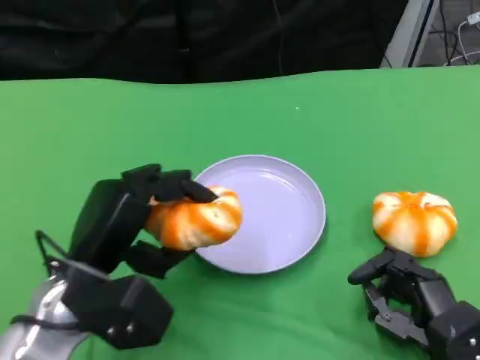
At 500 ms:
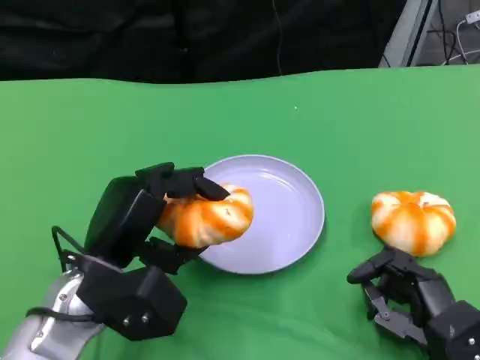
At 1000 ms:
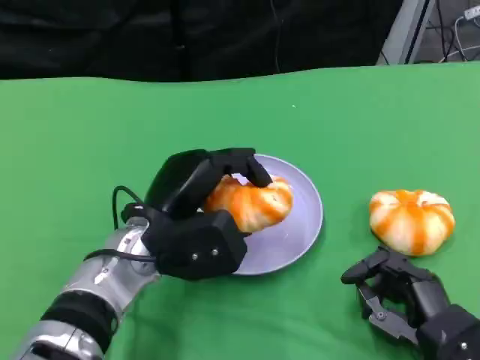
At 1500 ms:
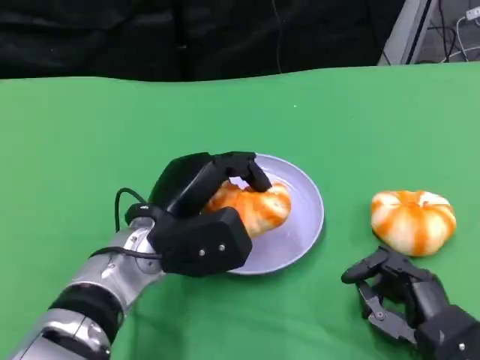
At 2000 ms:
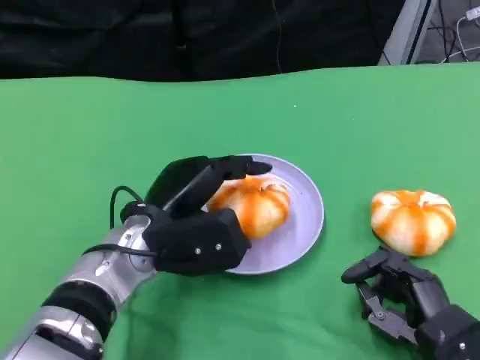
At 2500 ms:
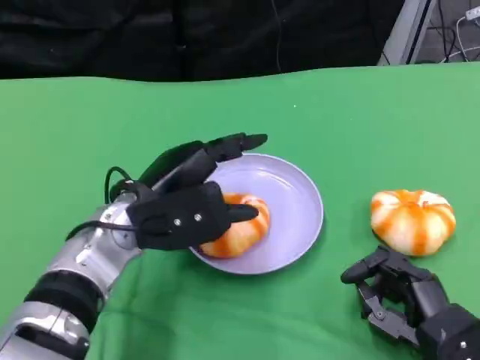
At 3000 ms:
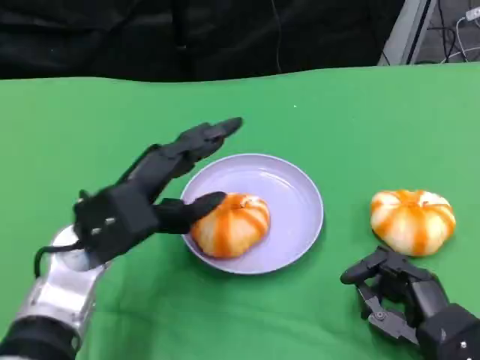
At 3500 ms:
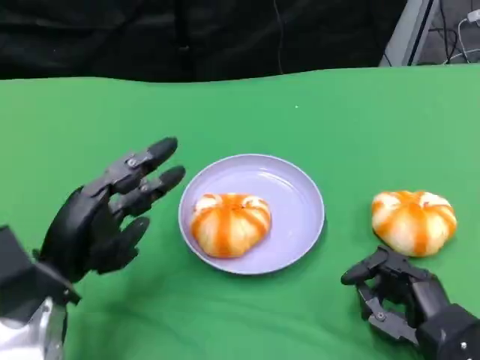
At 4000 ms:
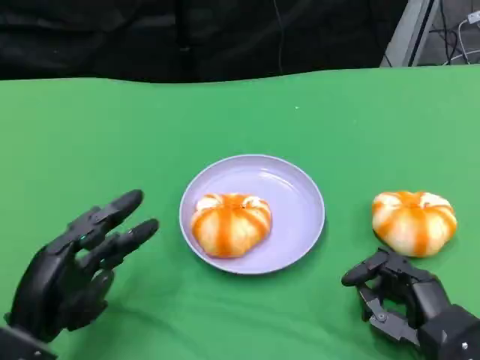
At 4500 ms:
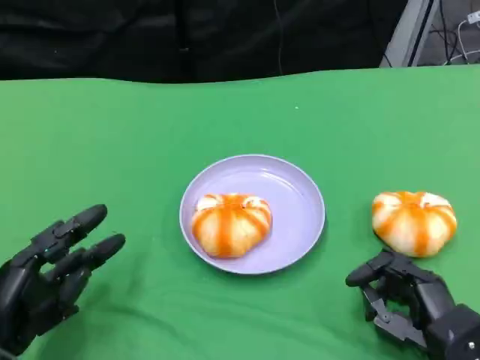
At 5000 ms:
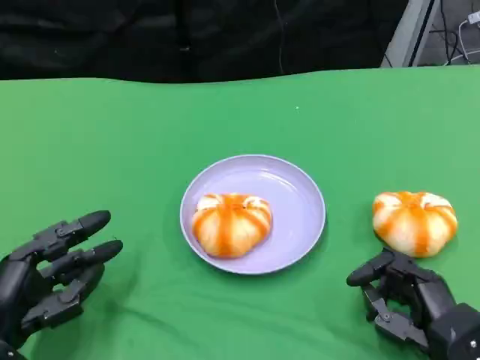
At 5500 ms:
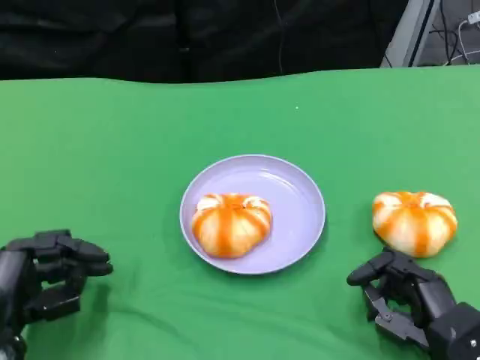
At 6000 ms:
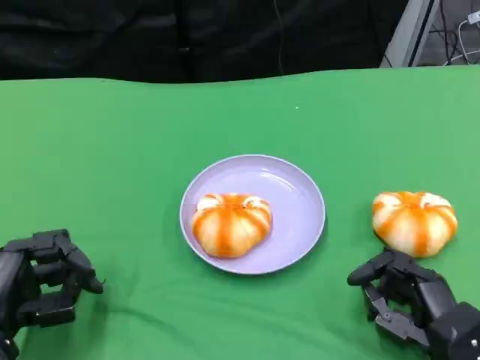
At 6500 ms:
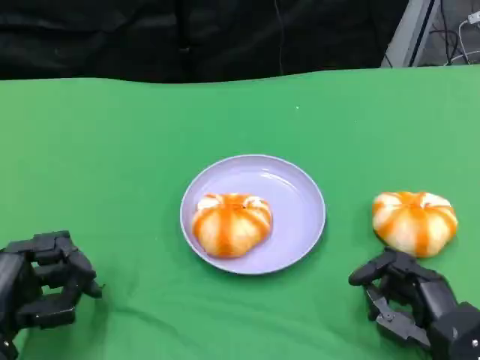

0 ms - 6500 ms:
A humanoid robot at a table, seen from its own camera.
Task of the whole recording: Grasp the bread from the table and place it into the plate.
0 ms - 2000 ms: The left hand moves to the right and forward, some 10 cm.
2000 ms - 4500 ms: The left hand travels to the left, backward and downward by about 20 cm.
4500 ms - 6500 ms: There are only small adjustments of the hands.

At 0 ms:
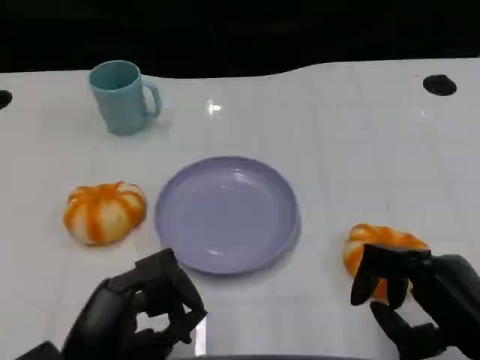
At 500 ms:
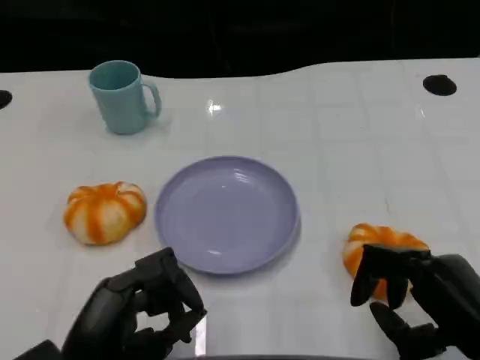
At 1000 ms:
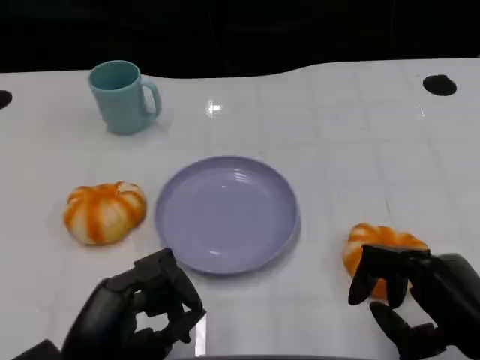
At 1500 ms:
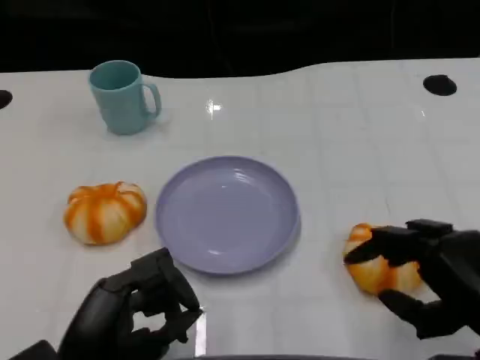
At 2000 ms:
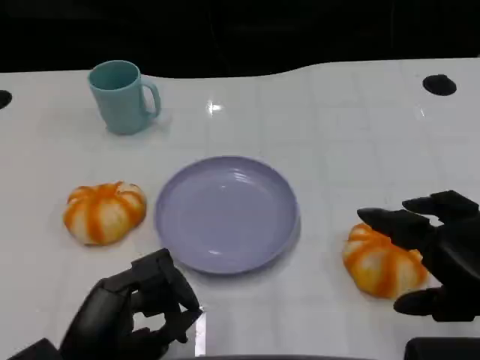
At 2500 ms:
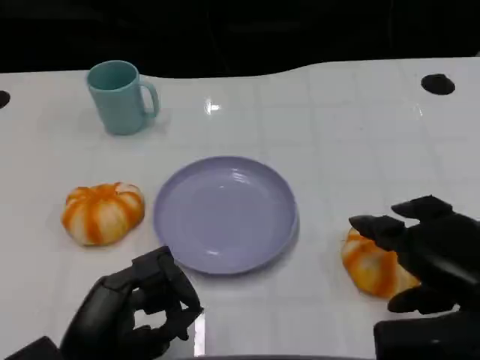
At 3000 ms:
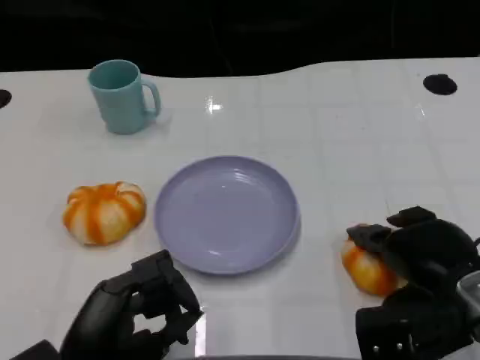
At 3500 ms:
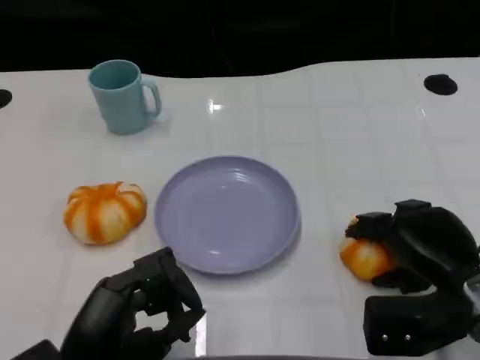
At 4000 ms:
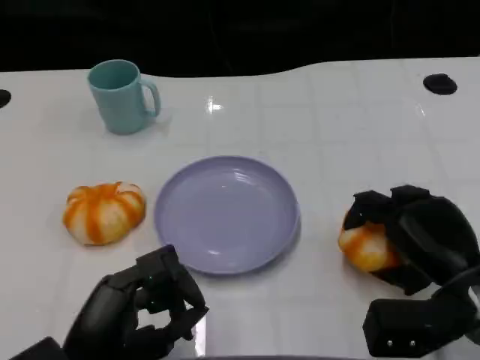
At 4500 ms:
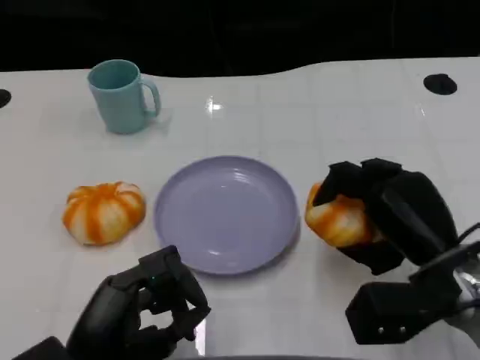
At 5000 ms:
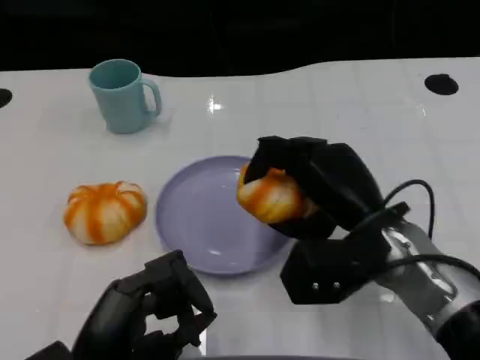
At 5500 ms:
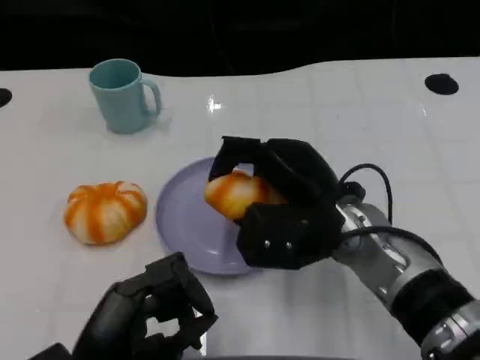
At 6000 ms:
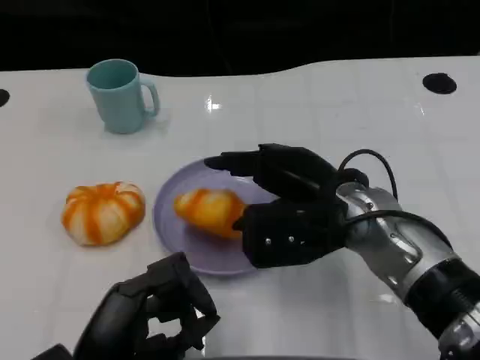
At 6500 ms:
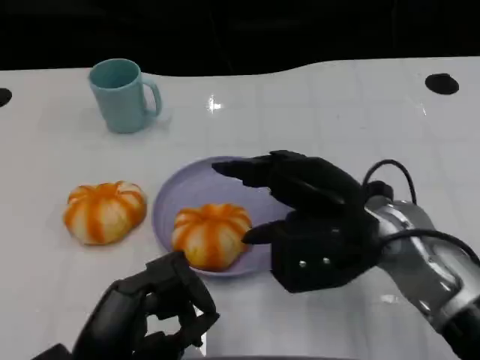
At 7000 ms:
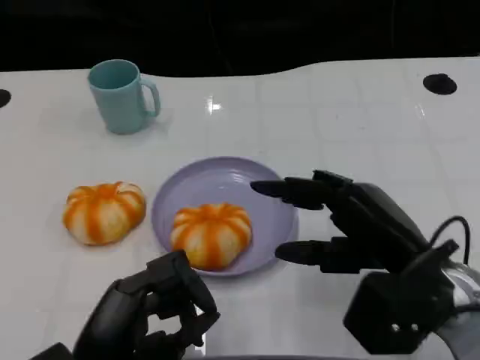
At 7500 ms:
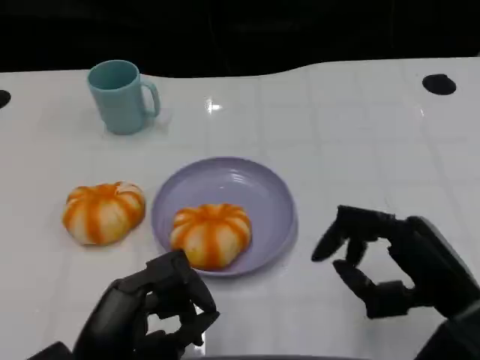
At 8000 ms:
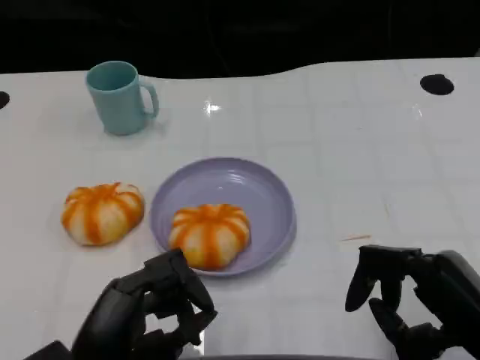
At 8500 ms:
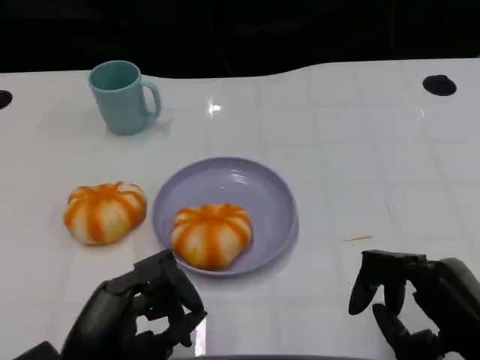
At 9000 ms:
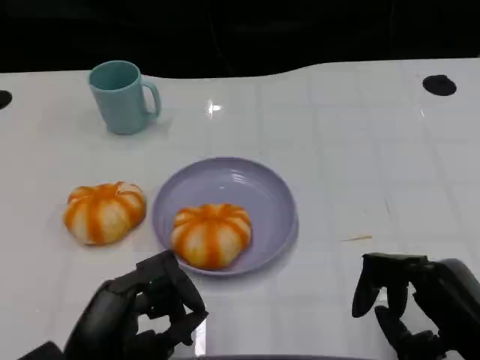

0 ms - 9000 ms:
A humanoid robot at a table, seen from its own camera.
Task of the whole recording: Grasp the bread from the table and place it into the plate.
0 ms - 2000 ms: The right hand is displaced upward by roughly 5 cm.
2000 ms - 4500 ms: The right hand travels forward, downward and to the left by about 10 cm.
4500 ms - 7000 ms: The right hand moves about 10 cm to the left and comes back.
7000 ms - 9000 ms: The right hand heads backward and to the right, covering about 10 cm.

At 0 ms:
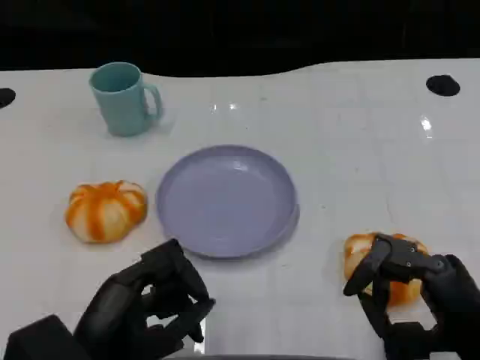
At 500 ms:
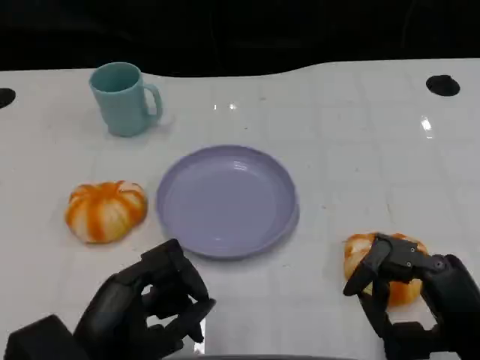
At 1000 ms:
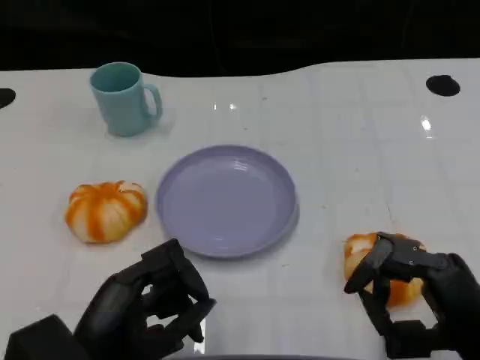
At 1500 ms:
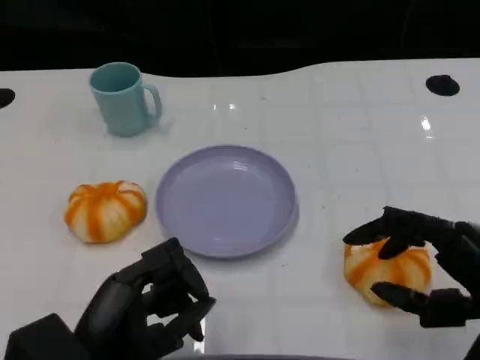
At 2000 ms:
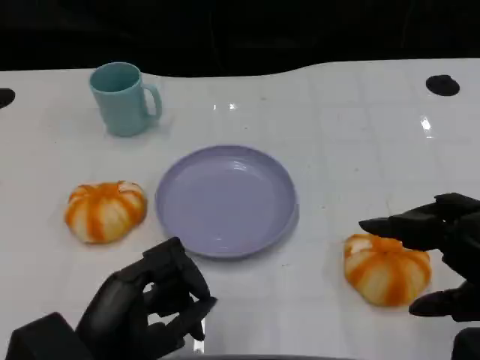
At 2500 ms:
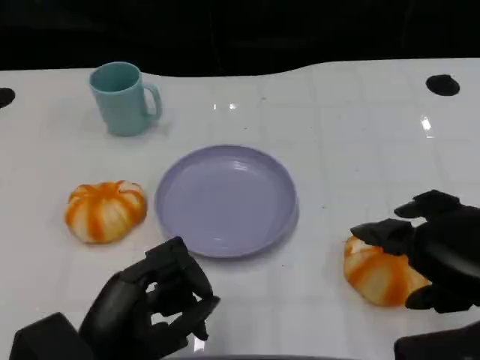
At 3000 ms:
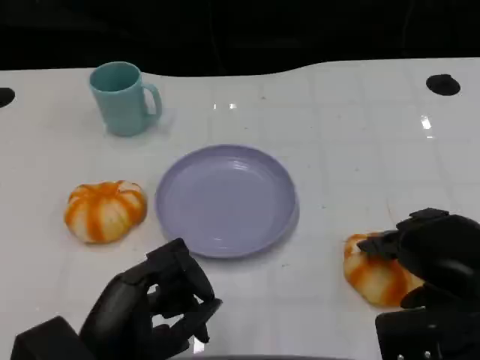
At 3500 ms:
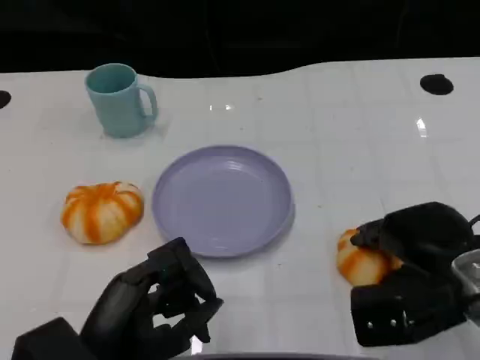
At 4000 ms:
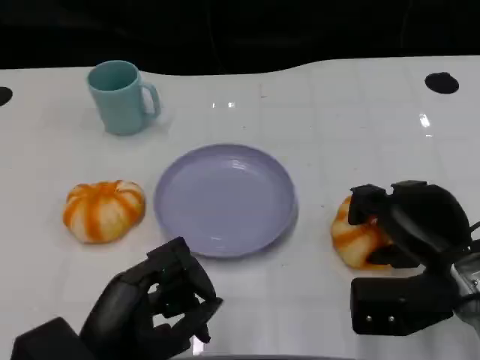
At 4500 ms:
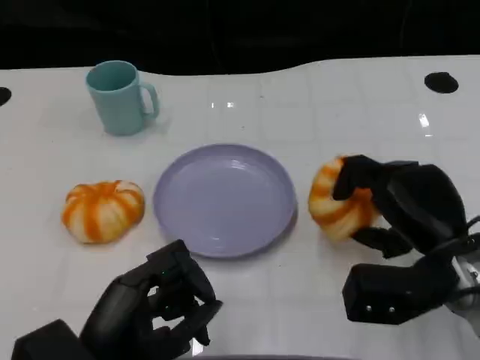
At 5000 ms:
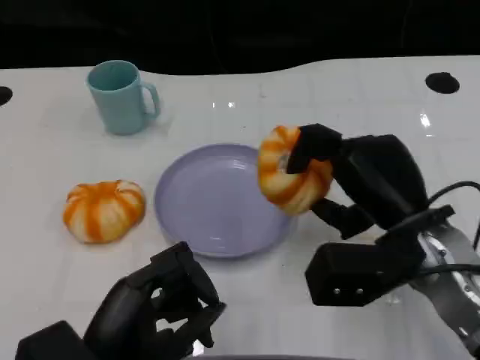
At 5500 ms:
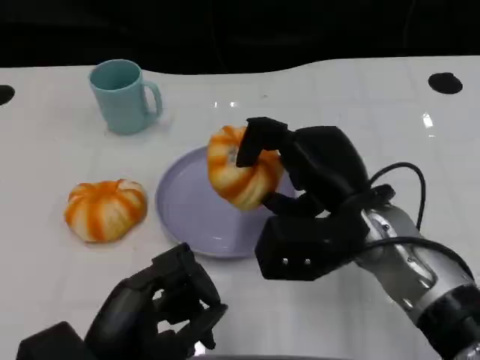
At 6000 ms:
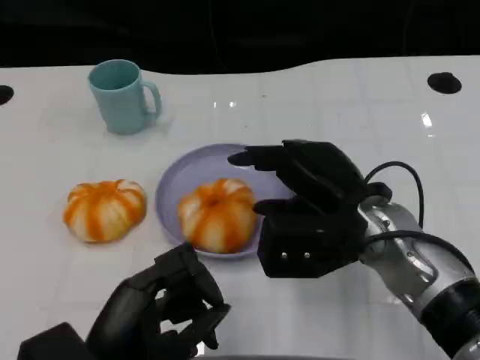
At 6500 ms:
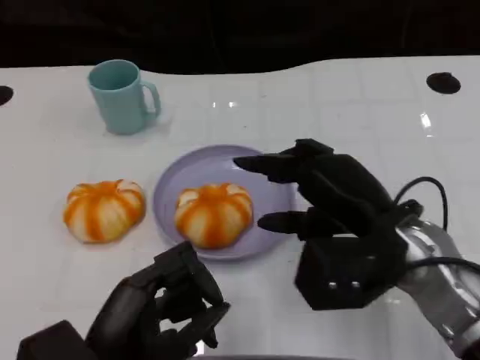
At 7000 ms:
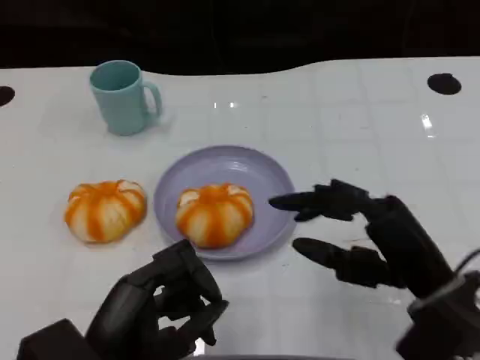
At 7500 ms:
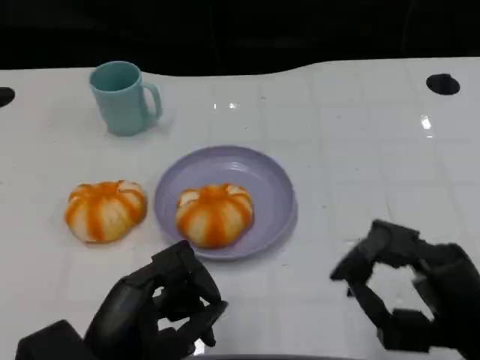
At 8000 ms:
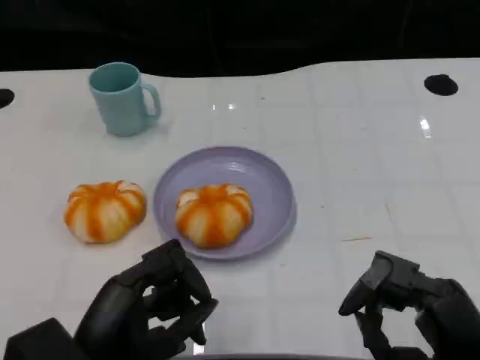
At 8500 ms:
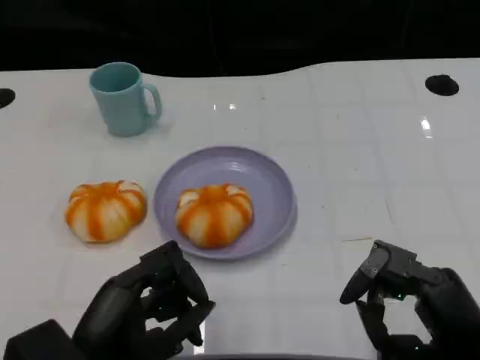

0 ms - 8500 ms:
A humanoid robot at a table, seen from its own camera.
Task of the whole recording: Grasp the bread from the table and place it into the plate.
0 ms - 2000 ms: The right hand moves upward, roughly 10 cm.
2000 ms - 4000 ms: The right hand travels downward and forward by approximately 15 cm.
4000 ms - 6500 ms: The right hand goes about 10 cm to the left and upward.
6500 ms - 8500 ms: The right hand goes approximately 15 cm backward, to the right and downward.

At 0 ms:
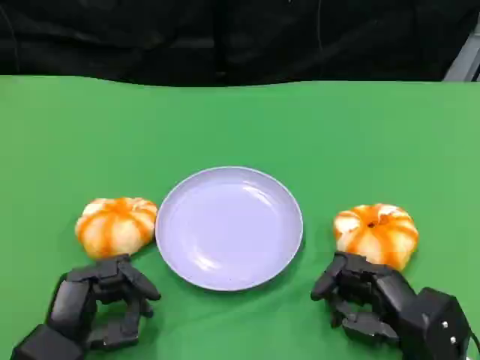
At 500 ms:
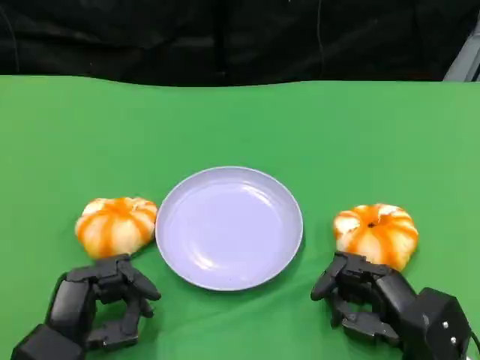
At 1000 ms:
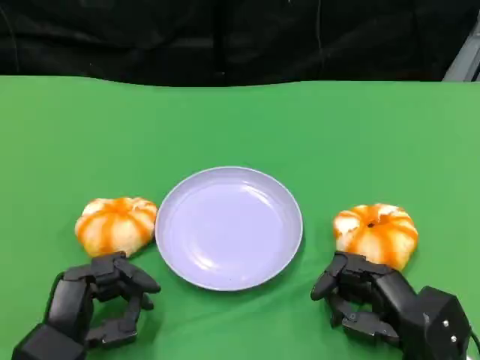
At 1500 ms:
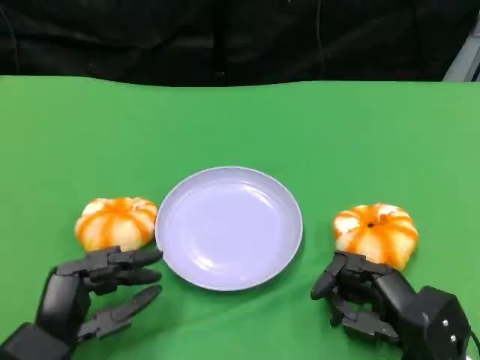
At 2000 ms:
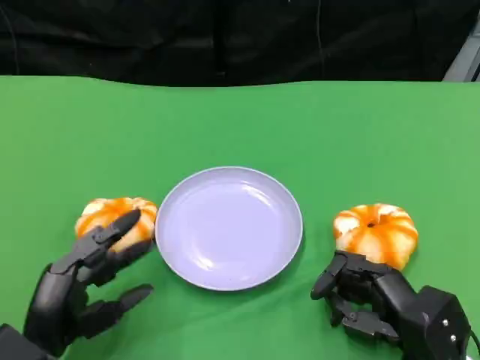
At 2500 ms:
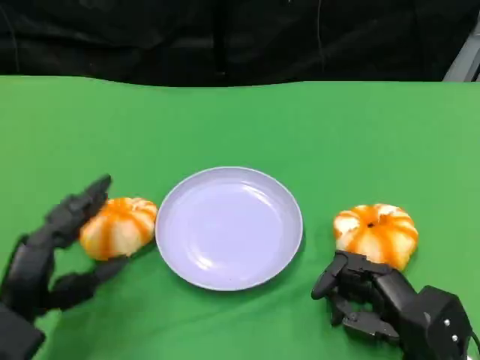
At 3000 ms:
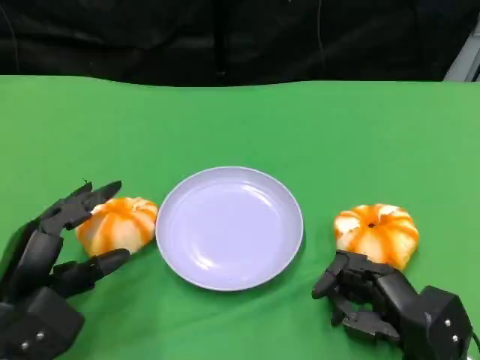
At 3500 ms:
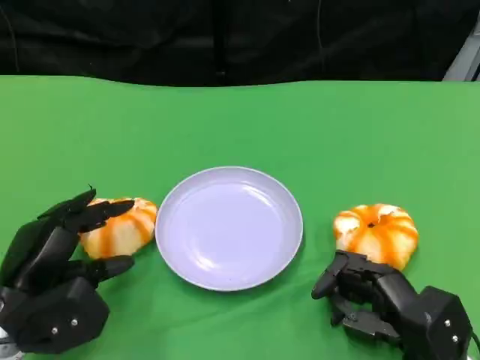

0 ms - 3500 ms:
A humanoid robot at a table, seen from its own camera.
Task of the whole recording: Grasp the bread from the table and place it into the plate.
0 ms - 2000 ms: There are only small adjustments of the hands.
2000 ms - 3500 ms: The left hand ends up approximately 5 cm from where it was.
